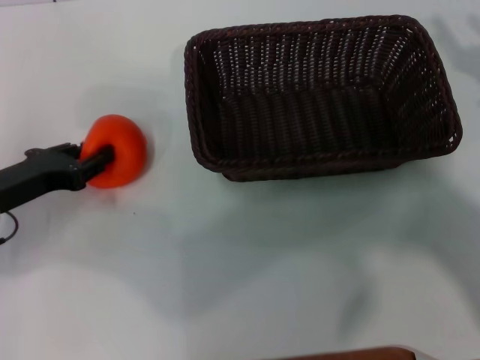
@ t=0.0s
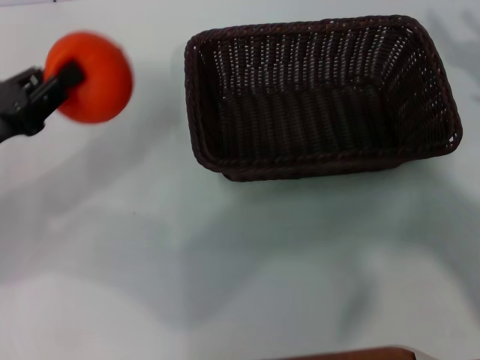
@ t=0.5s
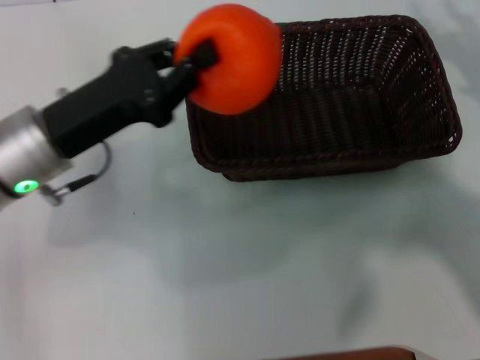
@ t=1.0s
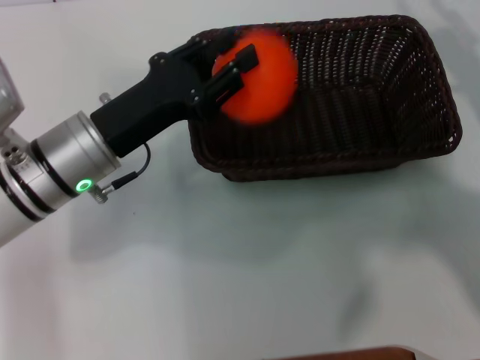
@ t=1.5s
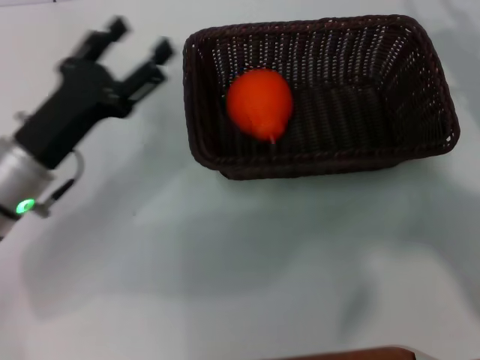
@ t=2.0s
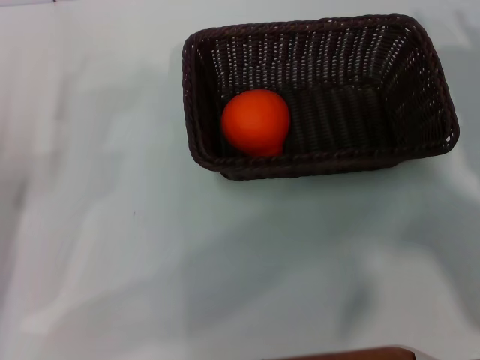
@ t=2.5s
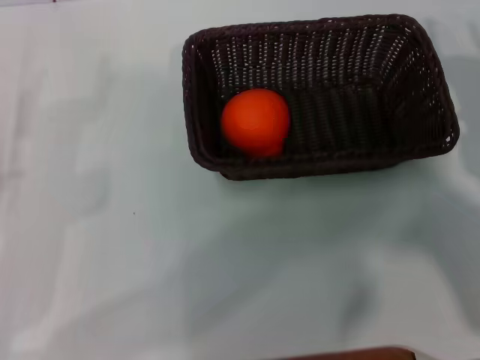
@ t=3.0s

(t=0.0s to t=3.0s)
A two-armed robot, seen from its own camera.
Task of the whole recording: the right gripper pick up the black basket and place it horizontally in the middle of the table, the left gripper pick up the orange and place it into the black basket.
Step, t=0.5s - t=1.5s: Place the orange into the dark basket with the left gripper.
t=0.0s - t=1.5s: The left gripper heads to the right, covering approximately 10 cm.
t=1.5s - t=3.0s: The right gripper ends up roughly 5 cm from where it was, while the left gripper is displaced to the left and backward by roughly 20 cm, and opens.
